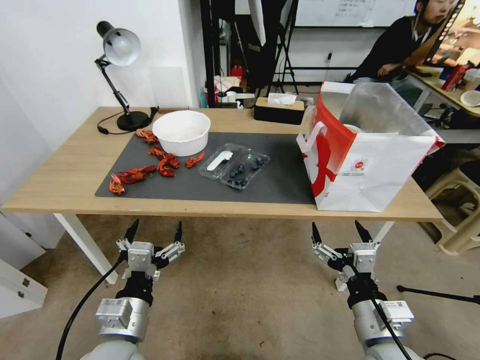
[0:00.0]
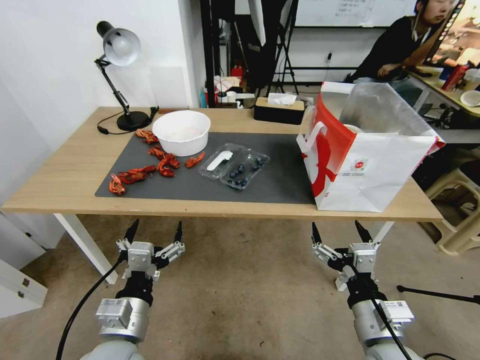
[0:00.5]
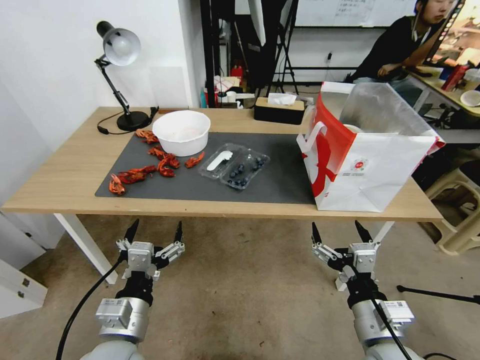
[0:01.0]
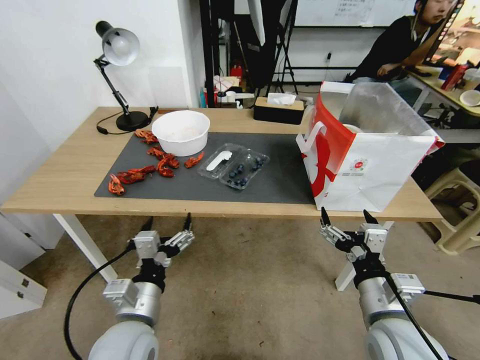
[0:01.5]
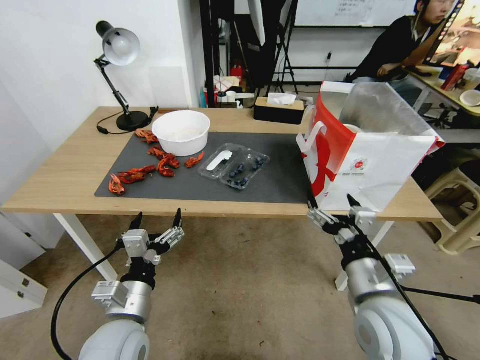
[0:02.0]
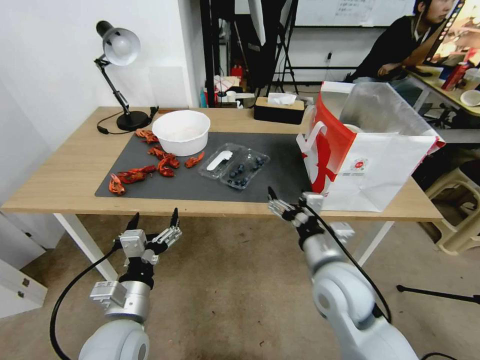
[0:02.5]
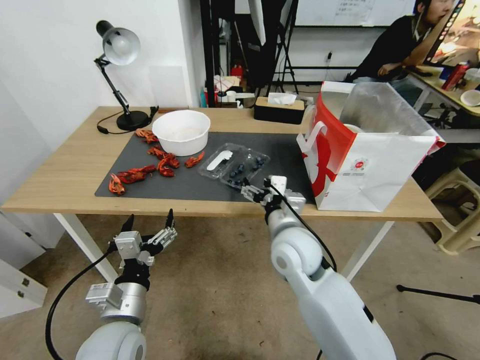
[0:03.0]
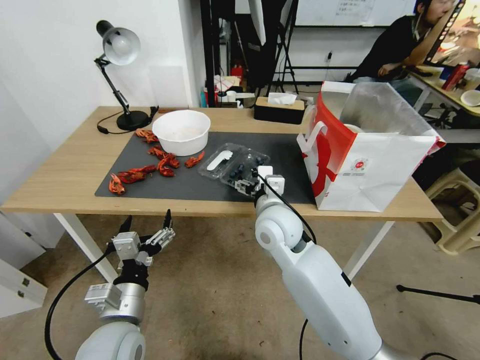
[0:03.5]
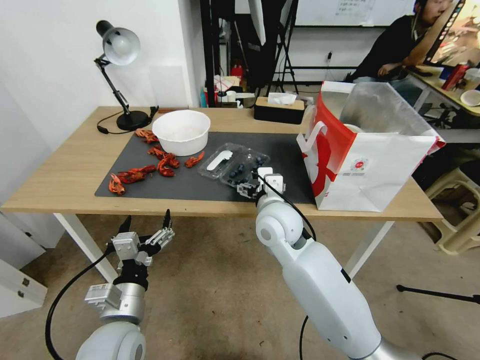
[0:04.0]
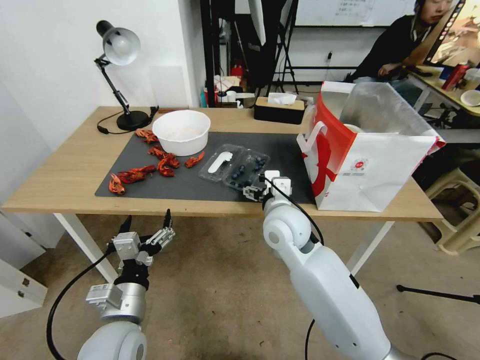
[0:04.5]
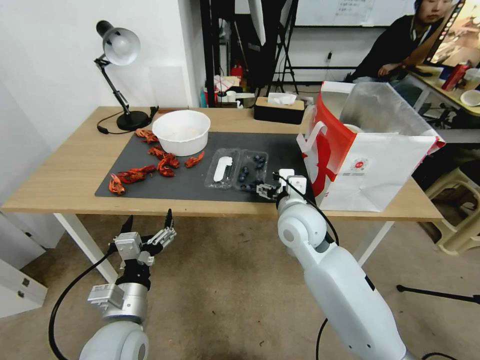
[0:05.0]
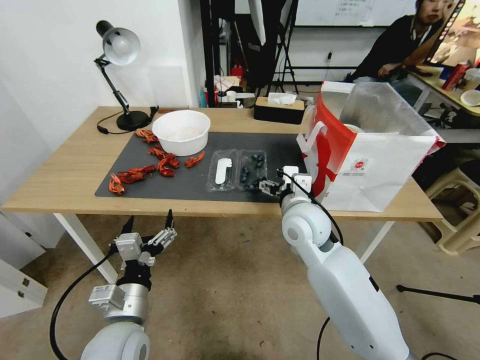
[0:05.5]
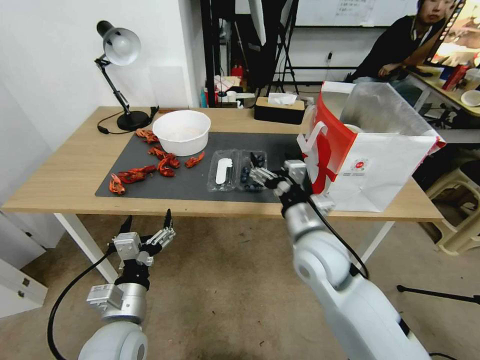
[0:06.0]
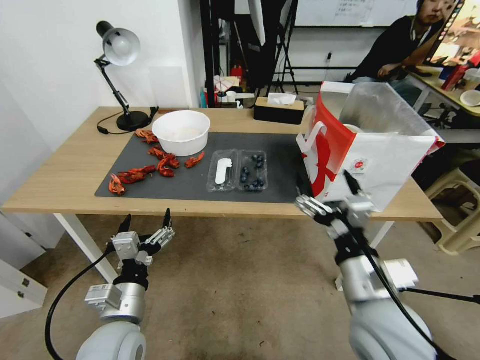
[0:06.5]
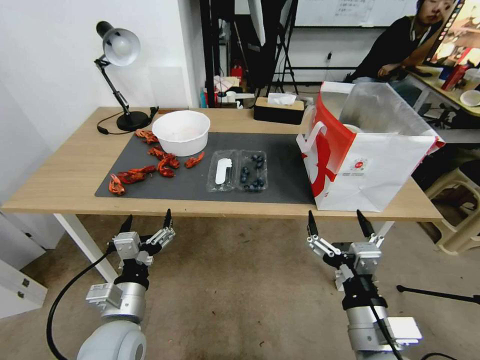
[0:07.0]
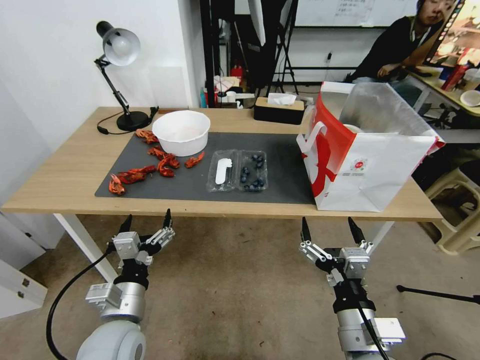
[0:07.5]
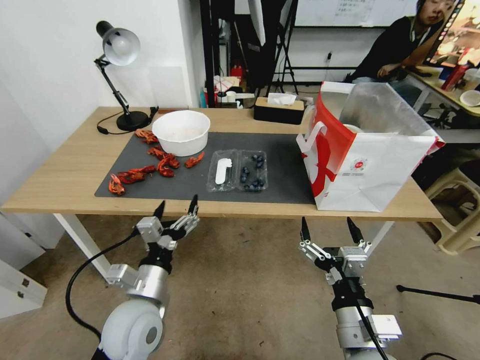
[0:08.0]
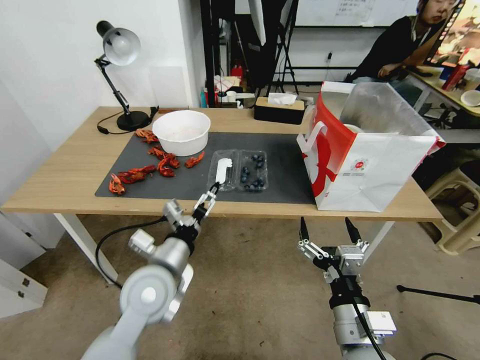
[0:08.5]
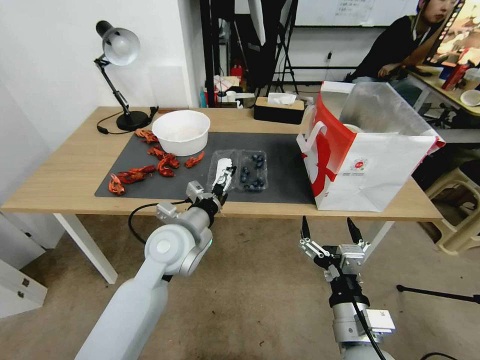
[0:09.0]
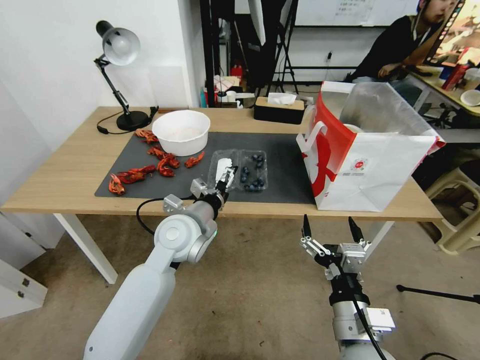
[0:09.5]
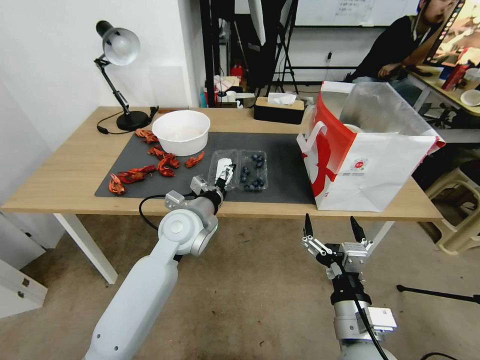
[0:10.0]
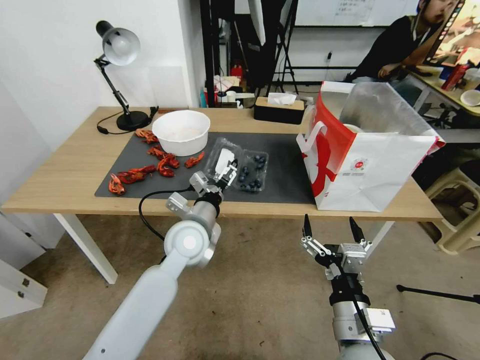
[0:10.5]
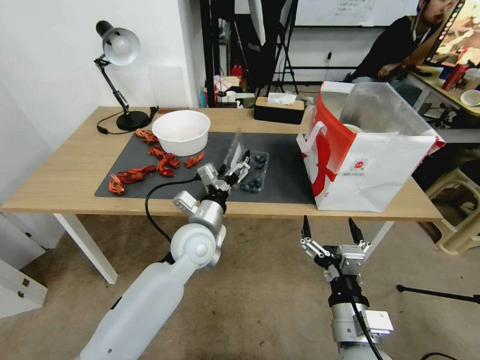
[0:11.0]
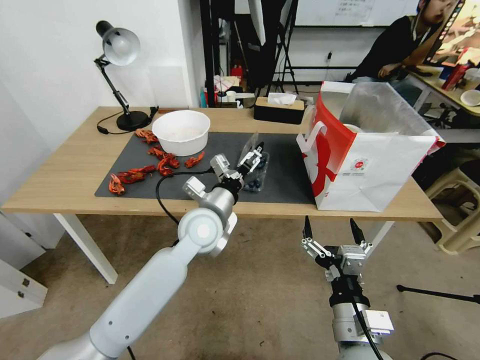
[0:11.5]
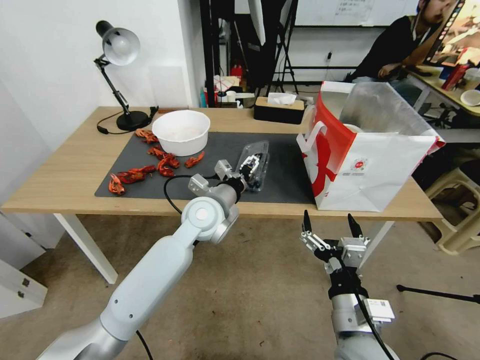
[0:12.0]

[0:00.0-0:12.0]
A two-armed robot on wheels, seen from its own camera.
Task of the whole recording: Close the takeout container lid, then place the container into the takeout bag.
0:02.0 to 0:04.0: The right gripper goes some 25 cm forward and to the left.
0:04.0 to 0:06.0: The right gripper heads backward and to the right, covering approximately 10 cm.
0:06.0 to 0:08.0: The right gripper goes approximately 15 cm backward.
0:08.0 to 0:10.0: The left gripper goes approximately 20 cm forward and to the right.
0:10.0 to 0:12.0: The left gripper moves roughly 5 cm.

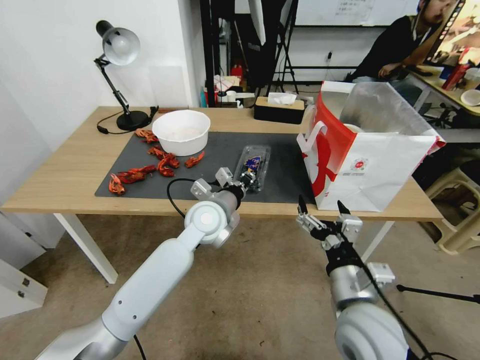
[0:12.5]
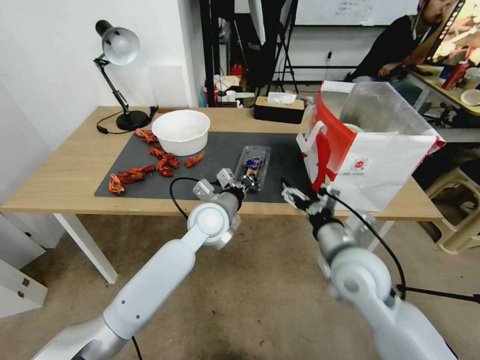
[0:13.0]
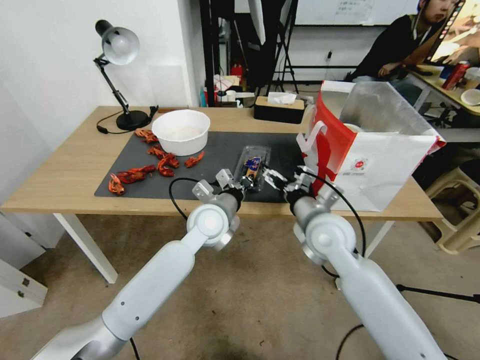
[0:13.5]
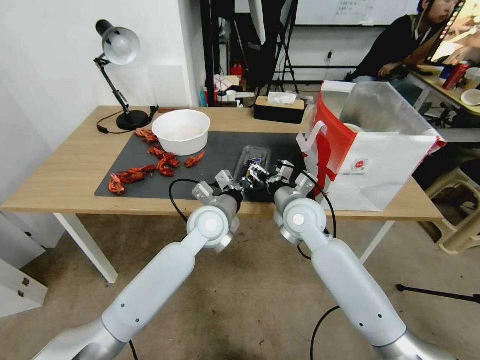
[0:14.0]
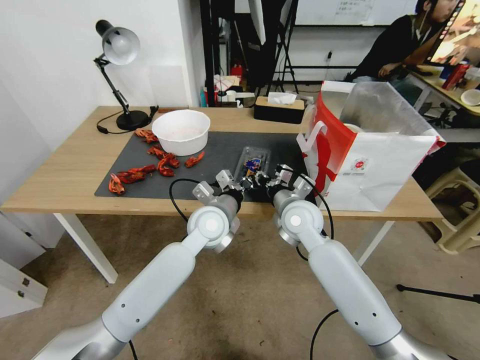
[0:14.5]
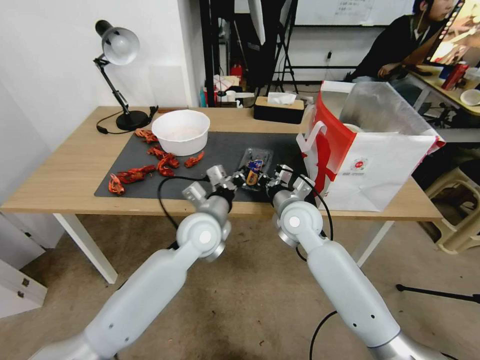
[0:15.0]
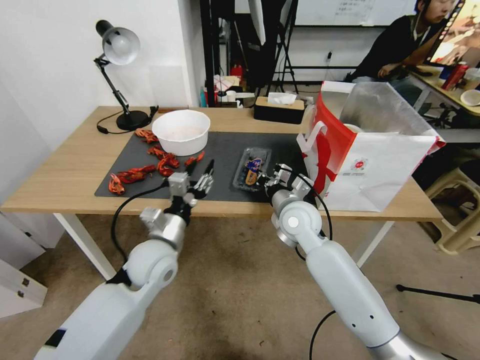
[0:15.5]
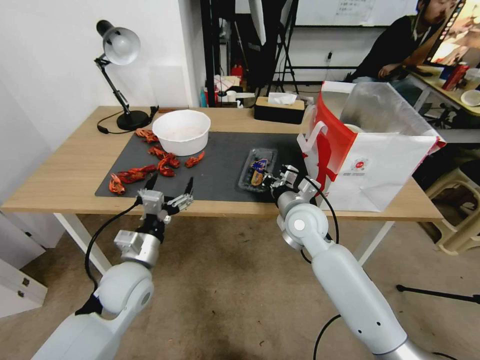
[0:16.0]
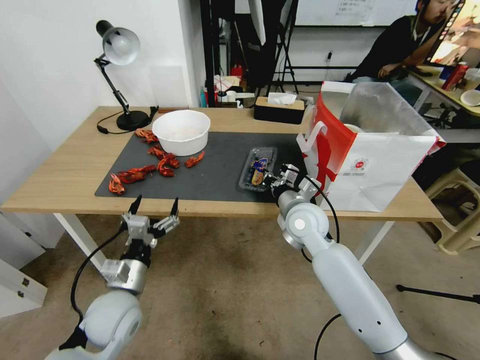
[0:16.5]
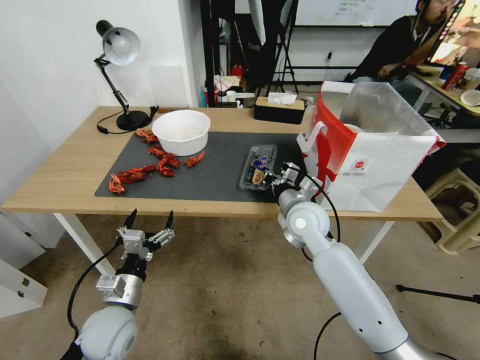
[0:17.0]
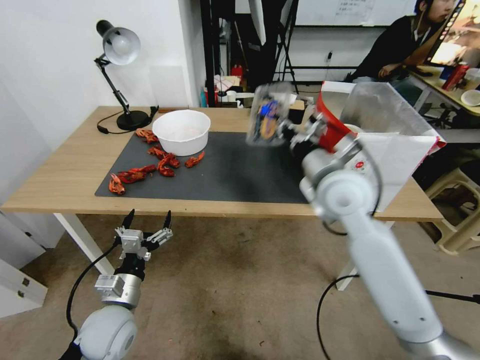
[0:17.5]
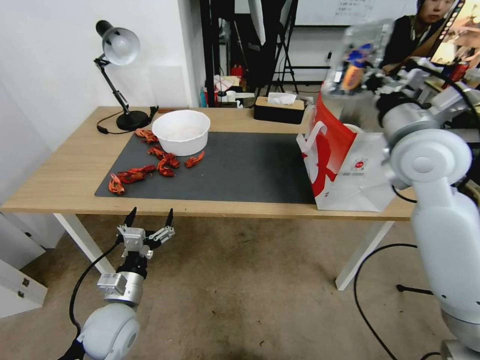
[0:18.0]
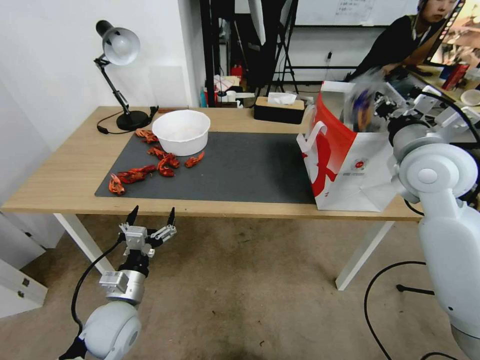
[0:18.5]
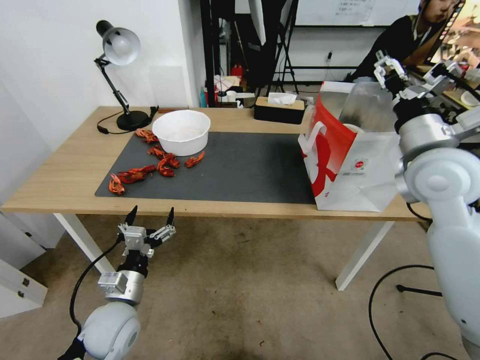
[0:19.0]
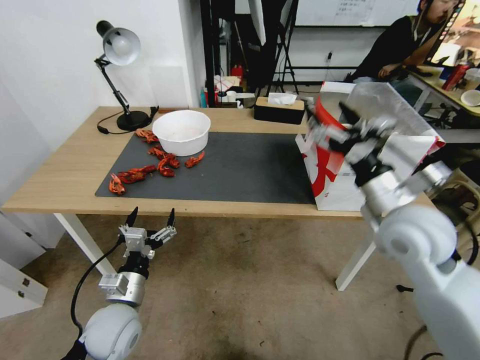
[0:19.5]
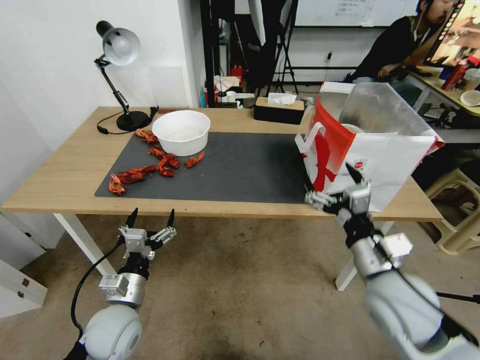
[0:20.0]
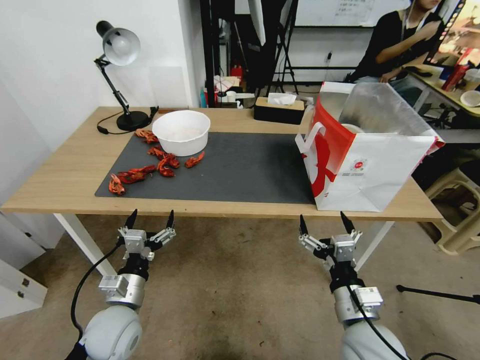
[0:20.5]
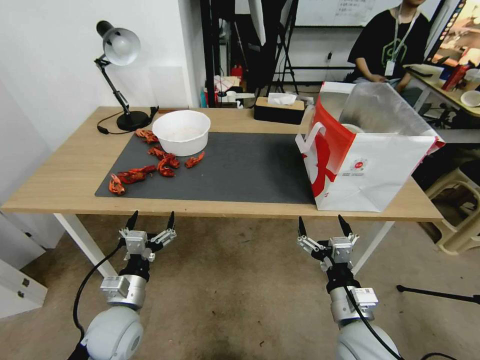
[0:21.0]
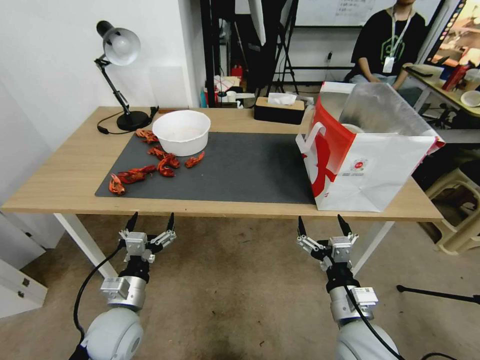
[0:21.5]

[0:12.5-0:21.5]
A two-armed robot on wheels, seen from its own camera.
Task of the whole recording: Close the takeout container lid, then place the container into the takeout bag.
0:12.5 to 0:14.5: The right gripper travels forward by approximately 25 cm, and closes up.
0:14.5 to 0:17.0: The left gripper travels to the left, backward and downward by approximately 30 cm, and opens its fingers.
0:17.0 to 0:19.5: The right gripper shifts approximately 20 cm to the right, upward and backward, and opens up.
0:19.5 to 0:21.5: The right gripper heads downward and backward, covering about 20 cm.
